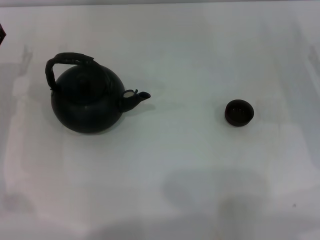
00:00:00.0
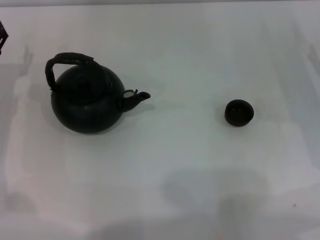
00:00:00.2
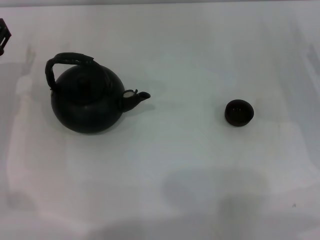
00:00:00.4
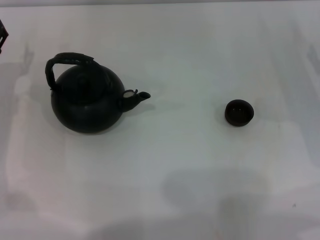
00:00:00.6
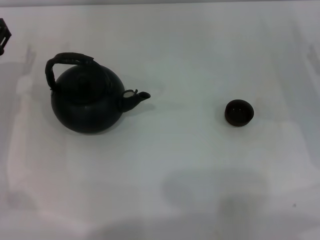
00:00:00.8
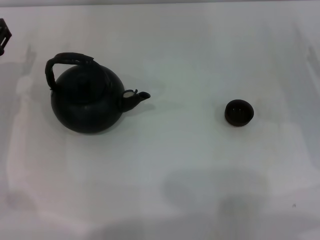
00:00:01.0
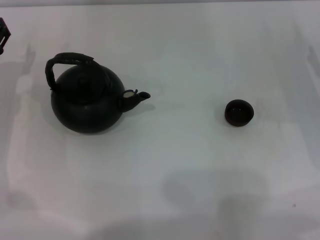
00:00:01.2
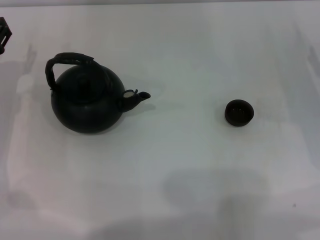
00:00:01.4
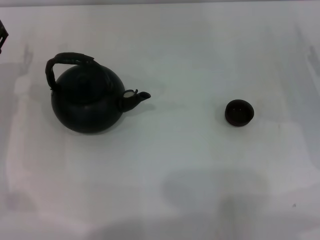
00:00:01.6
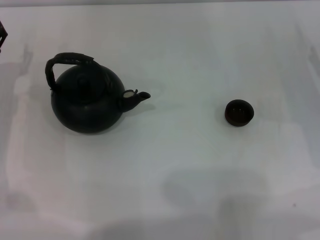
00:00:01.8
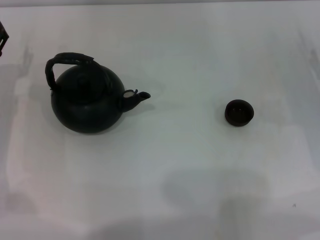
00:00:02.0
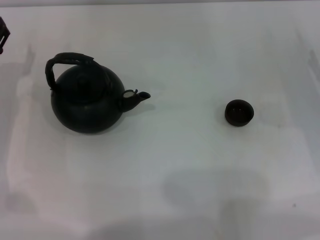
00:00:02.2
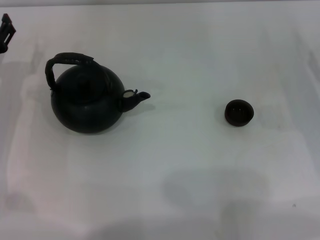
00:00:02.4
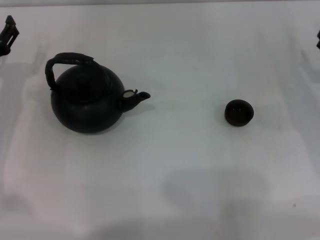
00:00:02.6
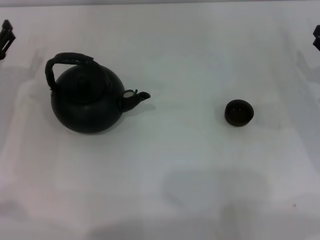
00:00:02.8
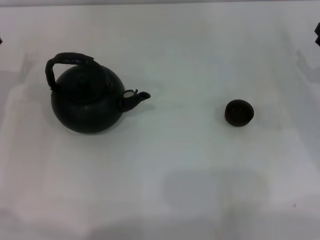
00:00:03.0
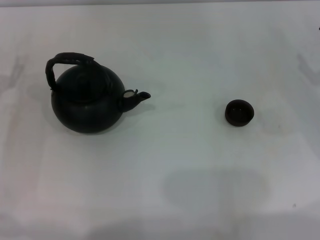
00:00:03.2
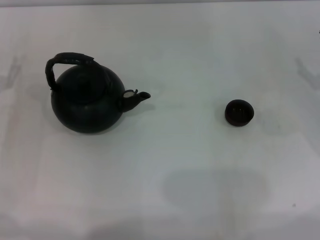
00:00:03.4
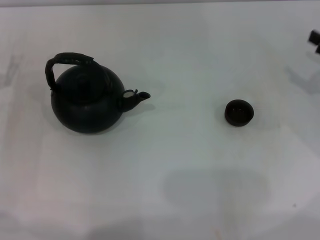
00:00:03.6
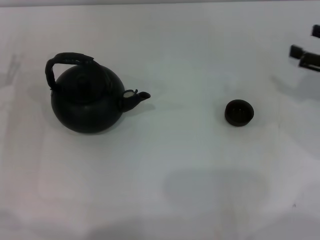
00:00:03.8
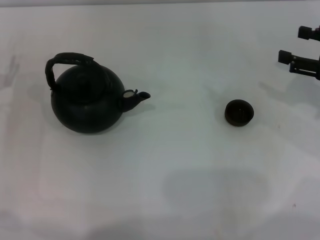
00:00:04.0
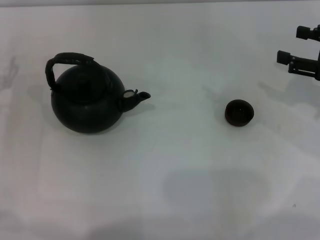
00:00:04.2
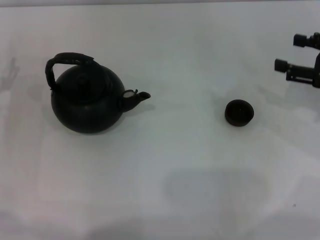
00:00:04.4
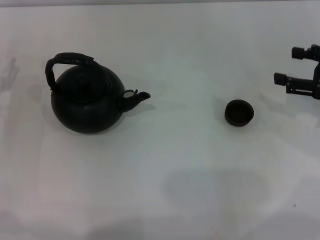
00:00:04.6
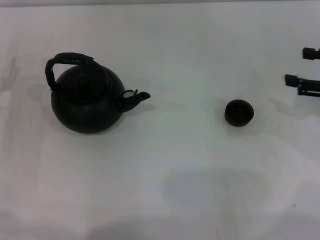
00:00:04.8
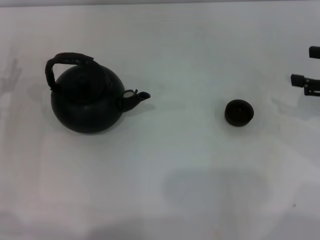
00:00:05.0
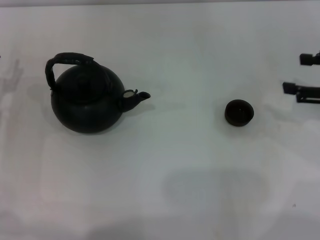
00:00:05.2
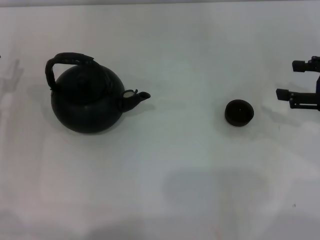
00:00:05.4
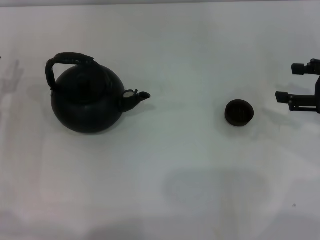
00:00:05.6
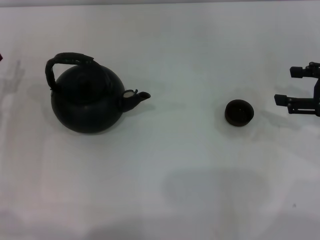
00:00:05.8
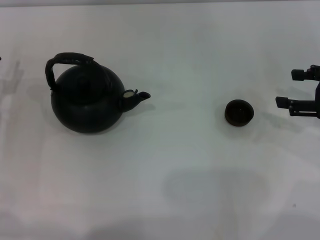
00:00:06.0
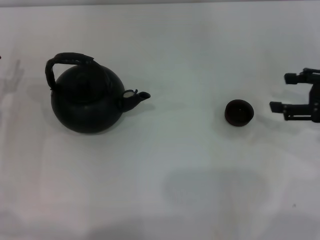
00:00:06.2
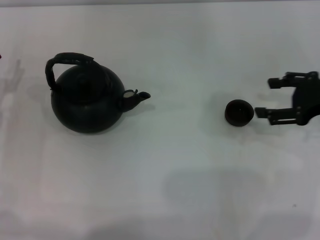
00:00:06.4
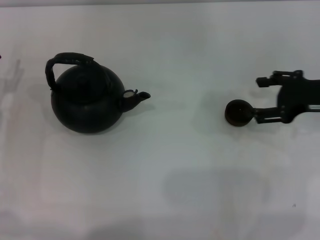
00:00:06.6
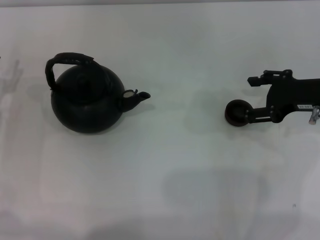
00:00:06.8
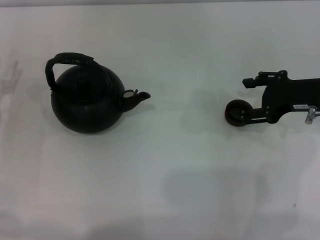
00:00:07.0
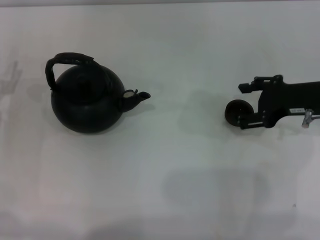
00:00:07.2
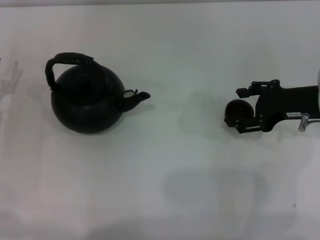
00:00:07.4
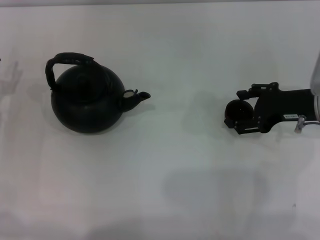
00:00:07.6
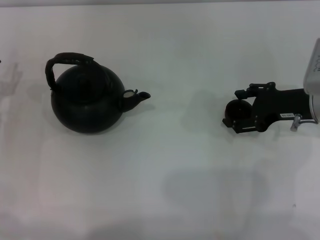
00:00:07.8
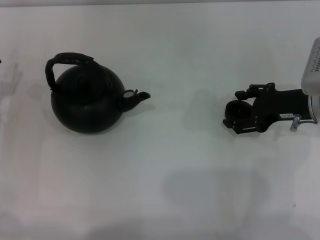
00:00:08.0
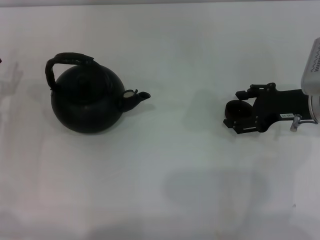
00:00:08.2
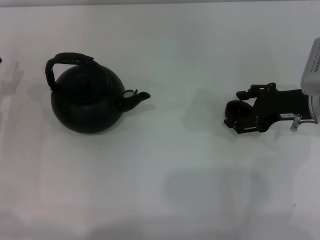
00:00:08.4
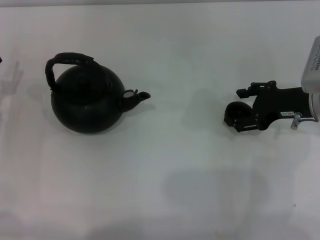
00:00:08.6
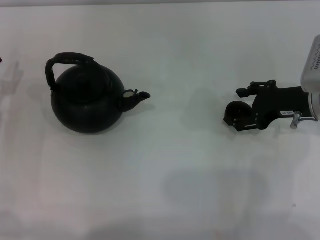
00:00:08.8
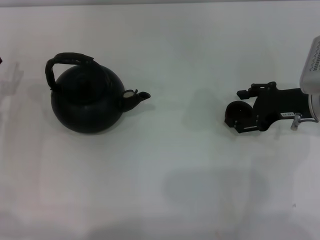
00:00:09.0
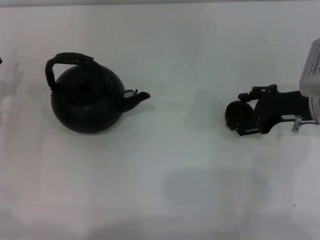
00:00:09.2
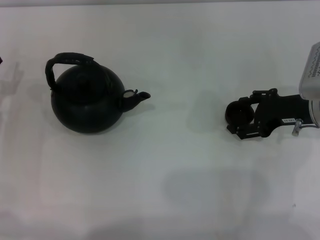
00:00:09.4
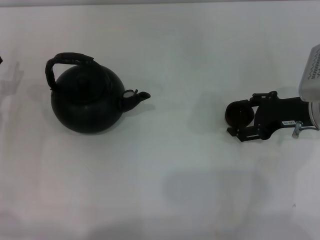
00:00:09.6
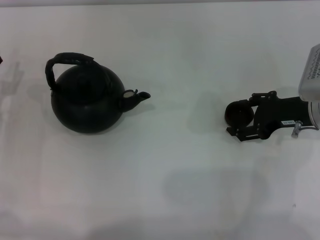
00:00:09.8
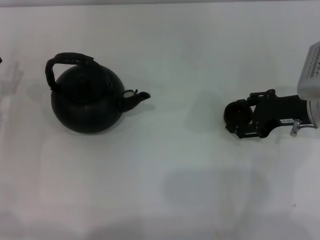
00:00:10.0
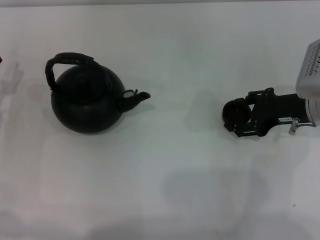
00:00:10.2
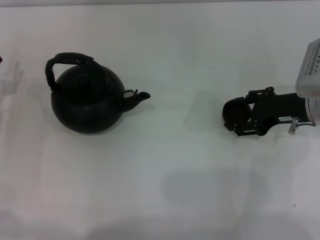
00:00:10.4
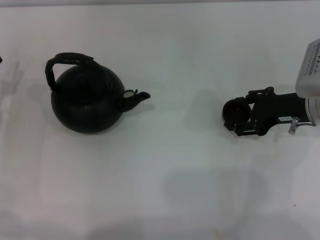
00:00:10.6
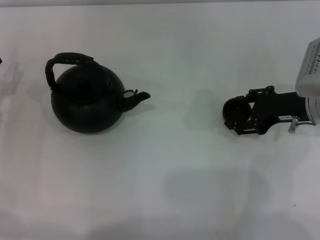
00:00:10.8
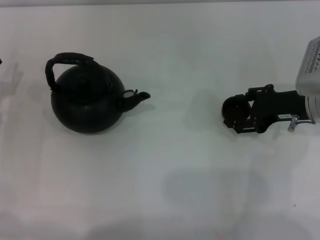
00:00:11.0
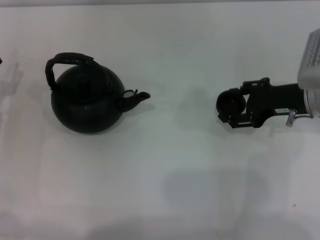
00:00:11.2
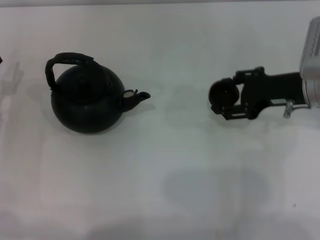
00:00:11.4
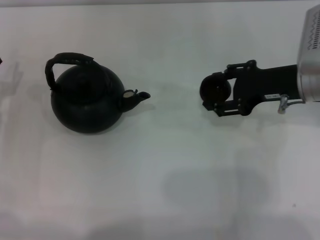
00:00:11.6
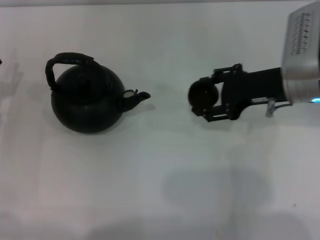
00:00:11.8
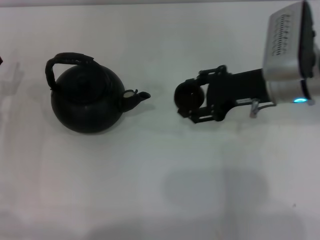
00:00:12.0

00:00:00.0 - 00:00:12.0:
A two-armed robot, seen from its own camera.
Task of the whole recording: Grasp the handle of the teapot with one hand and pour tea into the teacup.
Step, 00:00:00.0 - 00:00:11.0: Pick up the teacup with the right gripper.
00:00:00.0 - 00:00:01.6: Neither gripper changes place.
00:00:03.0 - 00:00:04.4: The right gripper shifts approximately 10 cm upward.
00:00:04.4 - 00:00:06.0: The grippers make only small movements.
00:00:06.0 - 00:00:07.6: The right gripper is displaced to the left by some 10 cm.
00:00:07.6 - 00:00:09.0: The two grippers keep their place.
00:00:09.0 - 00:00:10.4: Neither gripper changes place.
00:00:10.4 - 00:00:12.0: The right gripper heads to the left, covering about 5 cm.

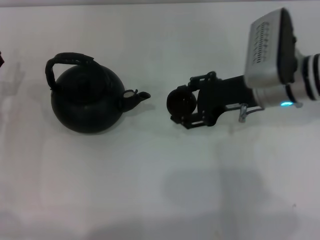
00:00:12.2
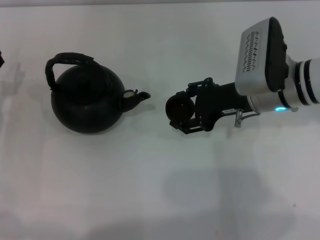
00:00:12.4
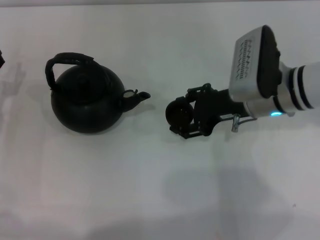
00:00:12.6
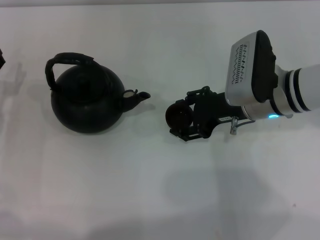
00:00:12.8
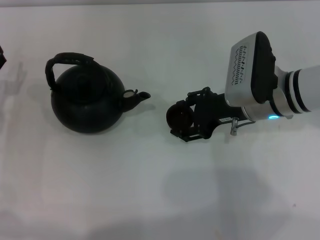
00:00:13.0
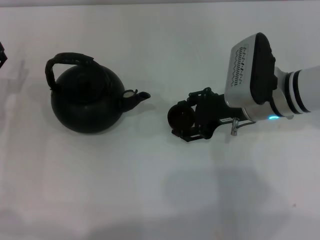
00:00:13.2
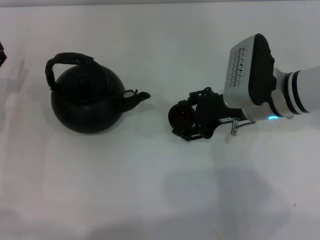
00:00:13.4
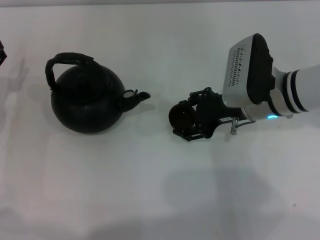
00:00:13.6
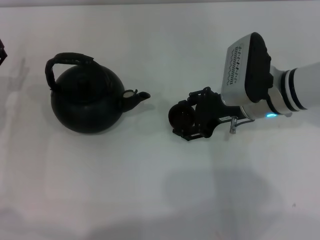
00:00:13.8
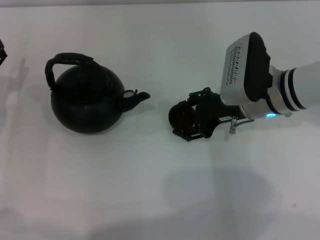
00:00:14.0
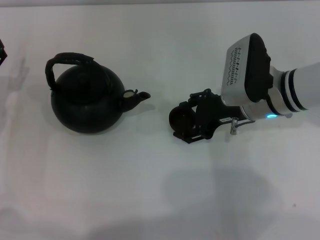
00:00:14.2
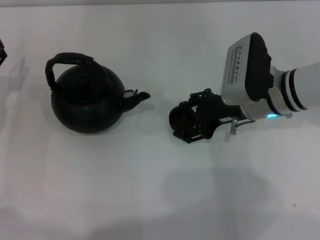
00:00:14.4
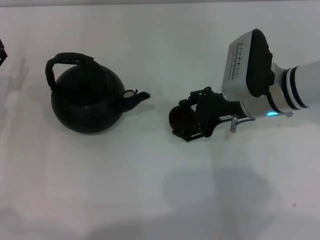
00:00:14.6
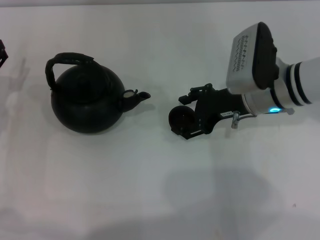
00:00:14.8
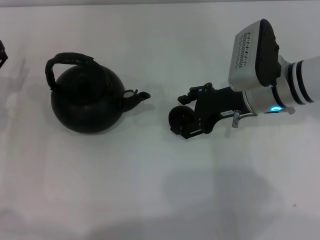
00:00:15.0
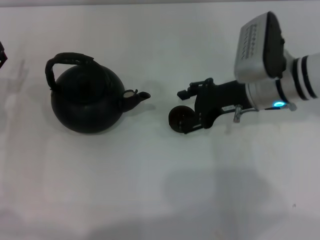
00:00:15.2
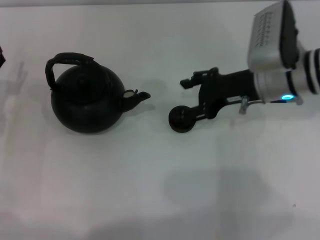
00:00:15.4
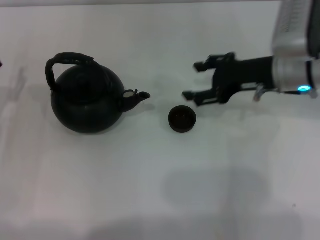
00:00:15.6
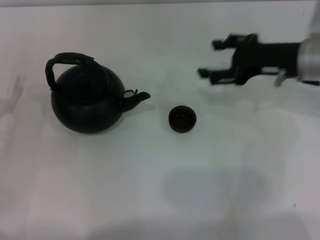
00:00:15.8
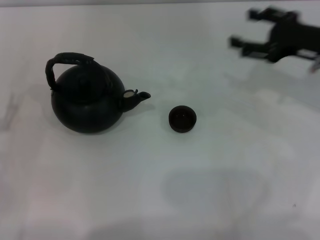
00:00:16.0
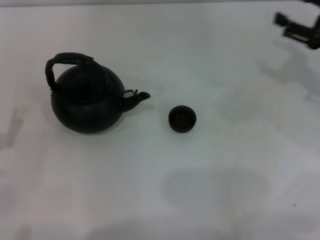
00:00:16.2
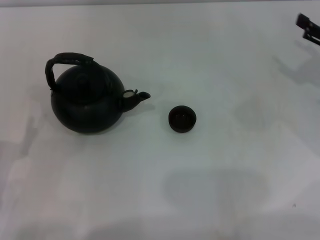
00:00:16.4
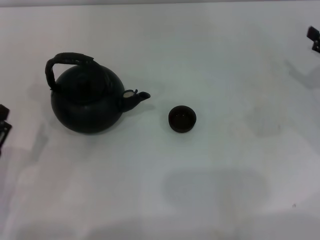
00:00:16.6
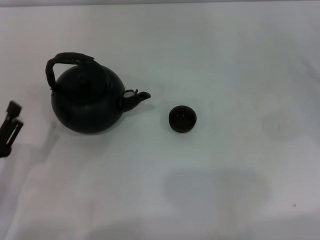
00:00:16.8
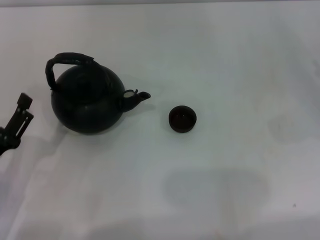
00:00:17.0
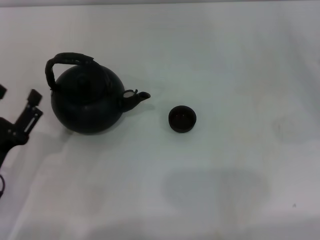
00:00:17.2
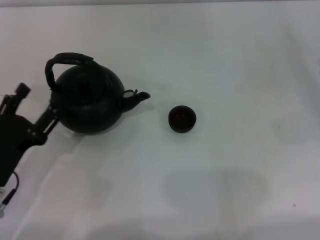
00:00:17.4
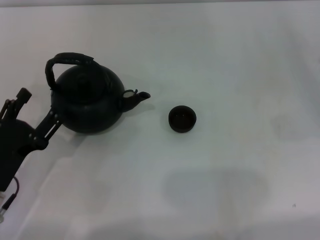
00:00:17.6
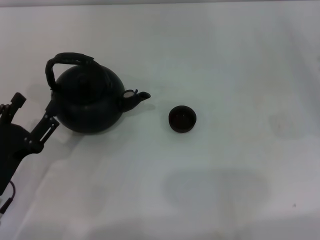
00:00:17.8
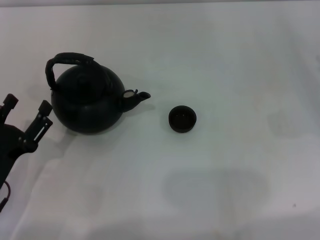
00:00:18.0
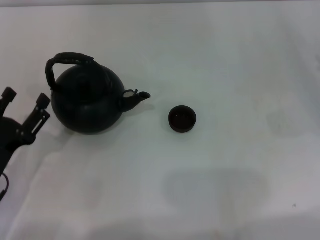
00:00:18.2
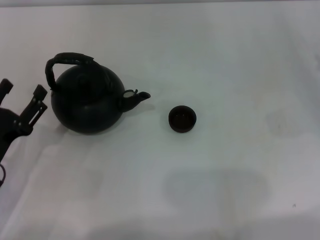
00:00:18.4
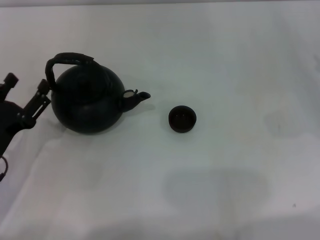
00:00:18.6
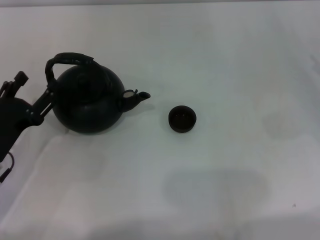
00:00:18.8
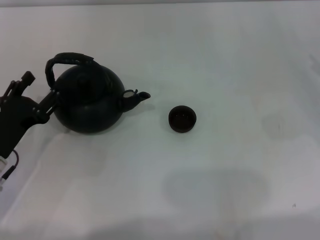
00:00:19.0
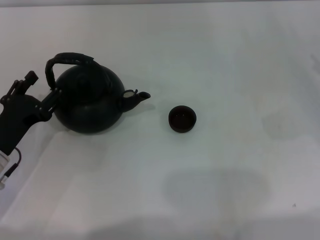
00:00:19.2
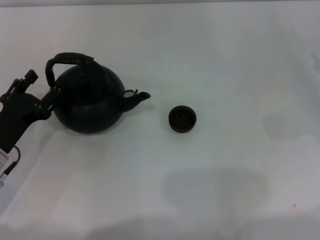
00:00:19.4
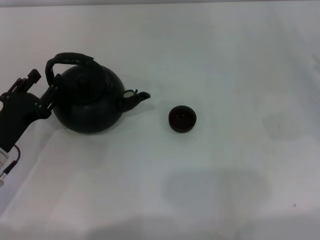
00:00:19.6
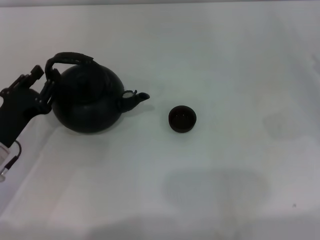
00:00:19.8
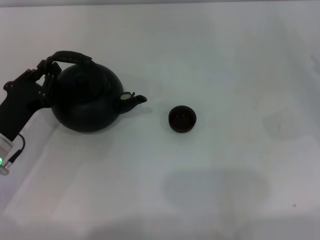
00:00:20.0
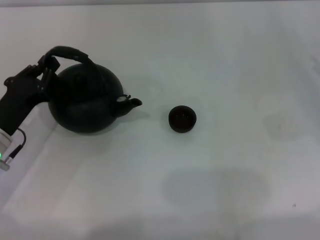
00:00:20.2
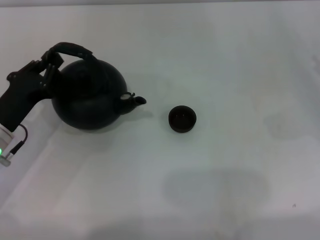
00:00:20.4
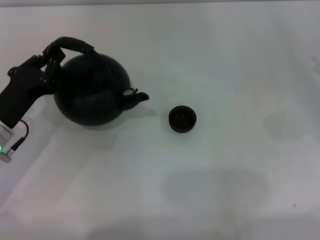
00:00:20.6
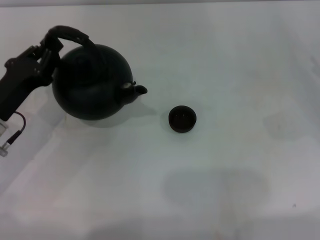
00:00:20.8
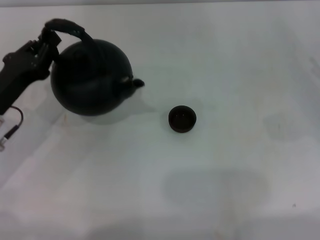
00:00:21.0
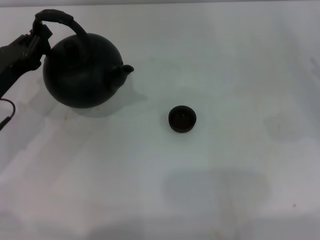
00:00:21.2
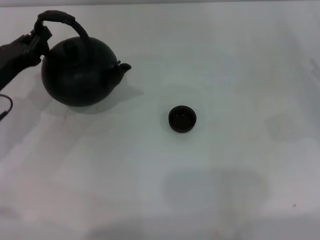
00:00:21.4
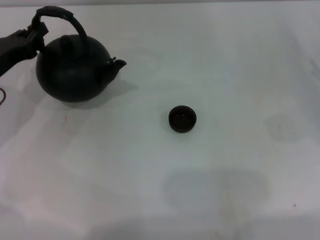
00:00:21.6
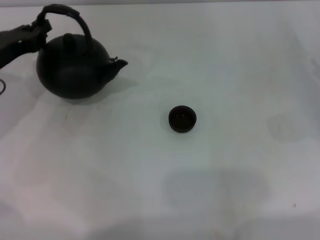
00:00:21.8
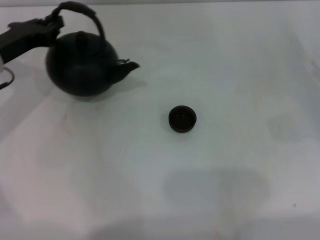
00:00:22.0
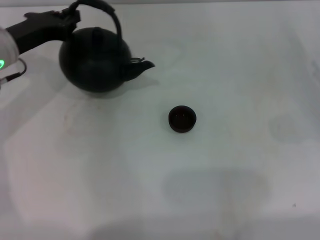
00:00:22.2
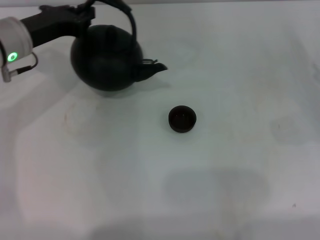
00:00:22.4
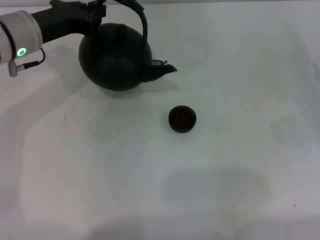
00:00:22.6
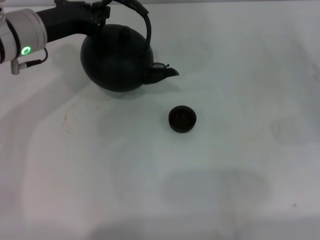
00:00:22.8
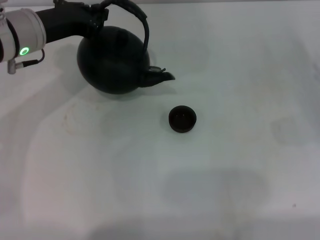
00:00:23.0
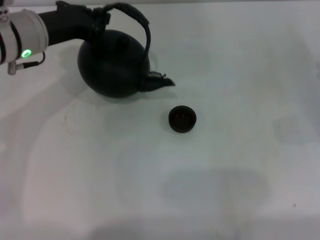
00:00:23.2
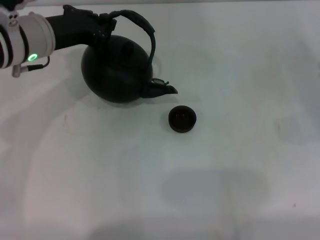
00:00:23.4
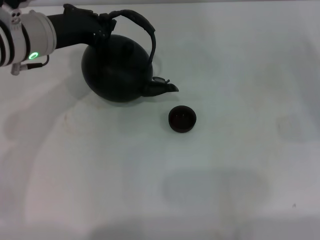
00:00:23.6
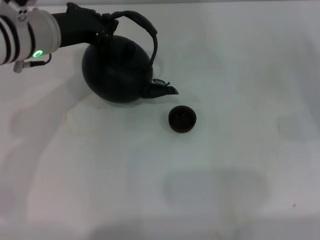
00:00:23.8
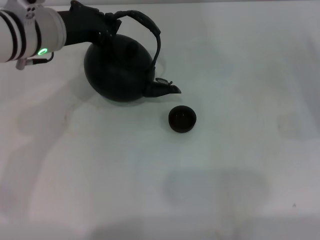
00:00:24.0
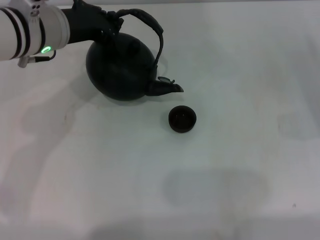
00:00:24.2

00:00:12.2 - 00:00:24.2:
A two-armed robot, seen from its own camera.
Task of the whole recording: Grasp the handle of the teapot with one hand and pour tea into the teacup.
Step, 00:00:12.2 - 00:00:15.4: Place the teacup in the center of view with the right gripper.
Step, 00:00:15.6 - 00:00:22.4: Pick up the teapot with the left gripper.
00:00:12.2 - 00:00:15.2: The grippers stay close to where they were, moving slightly.
00:00:15.2 - 00:00:16.6: The right gripper is displaced to the right by roughly 20 cm, while the left gripper travels backward by some 15 cm.
00:00:16.6 - 00:00:18.2: The grippers stay close to where they were, moving slightly.
00:00:18.2 - 00:00:19.8: The left gripper moves forward, approximately 5 cm.
00:00:19.8 - 00:00:21.2: The left gripper heads forward, covering roughly 5 cm, and closes up.
00:00:21.2 - 00:00:22.6: The left gripper heads forward, upward and to the right, covering approximately 15 cm.
00:00:22.6 - 00:00:24.2: The left gripper moves approximately 5 cm.
